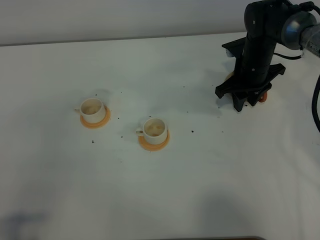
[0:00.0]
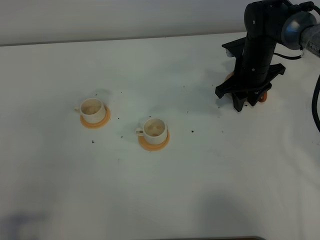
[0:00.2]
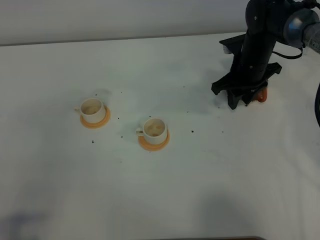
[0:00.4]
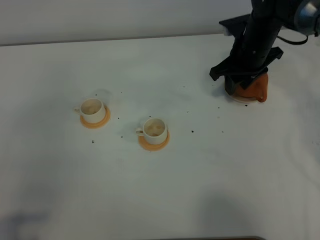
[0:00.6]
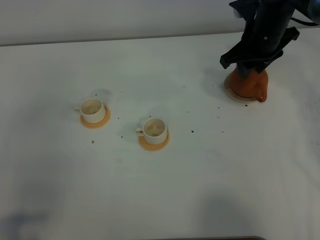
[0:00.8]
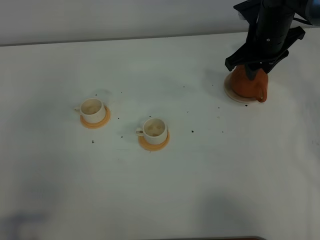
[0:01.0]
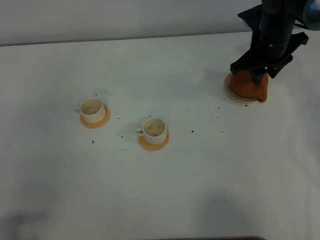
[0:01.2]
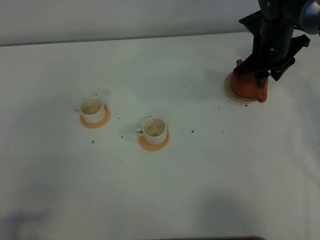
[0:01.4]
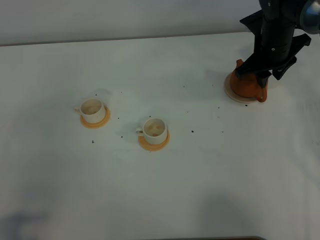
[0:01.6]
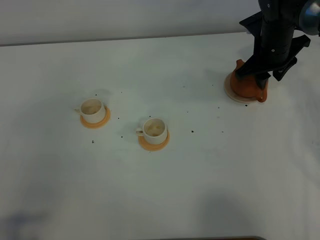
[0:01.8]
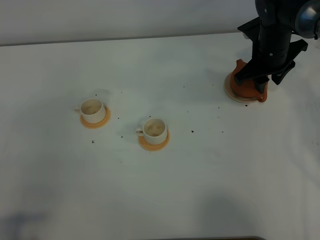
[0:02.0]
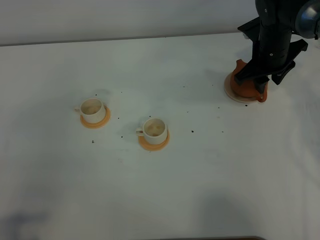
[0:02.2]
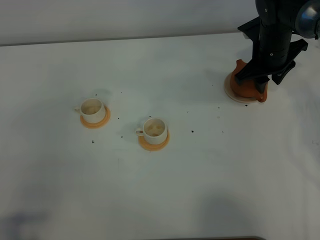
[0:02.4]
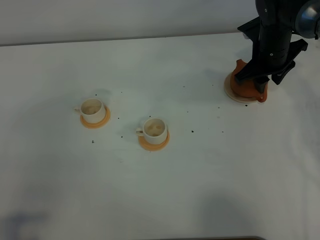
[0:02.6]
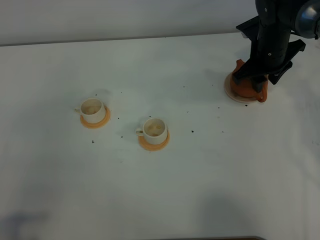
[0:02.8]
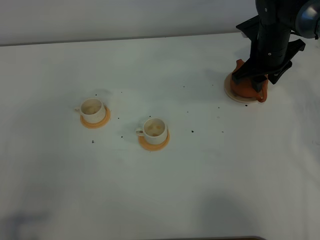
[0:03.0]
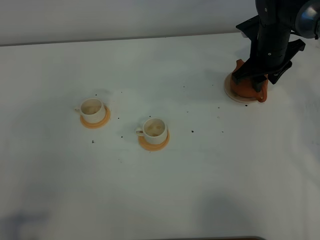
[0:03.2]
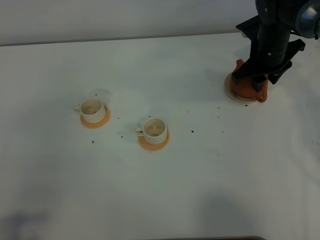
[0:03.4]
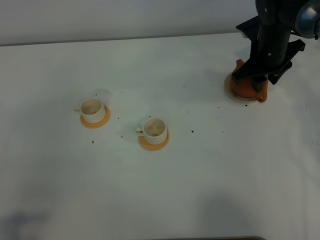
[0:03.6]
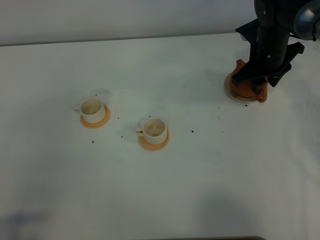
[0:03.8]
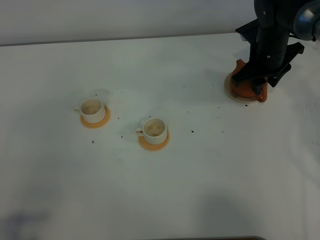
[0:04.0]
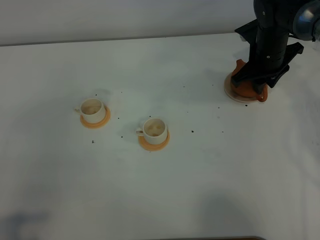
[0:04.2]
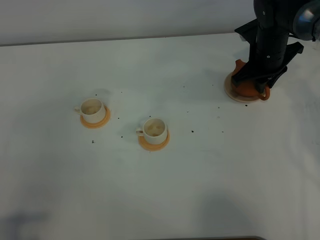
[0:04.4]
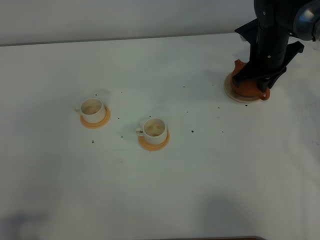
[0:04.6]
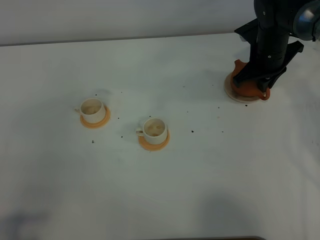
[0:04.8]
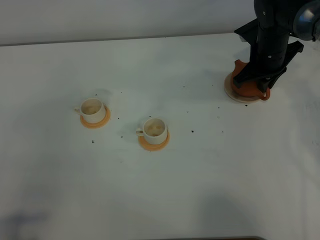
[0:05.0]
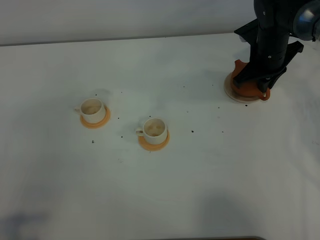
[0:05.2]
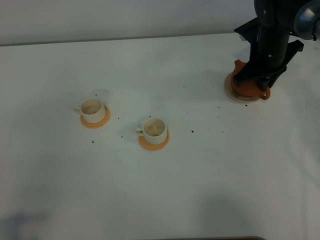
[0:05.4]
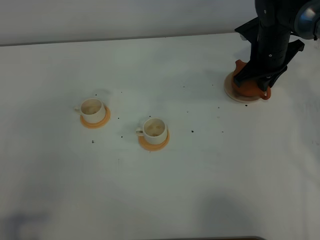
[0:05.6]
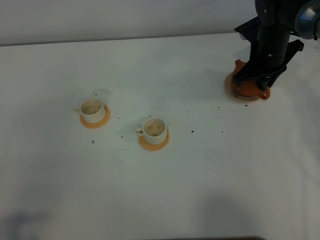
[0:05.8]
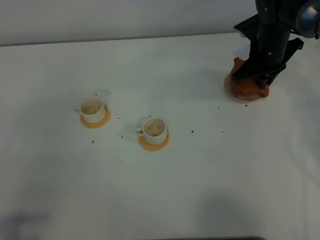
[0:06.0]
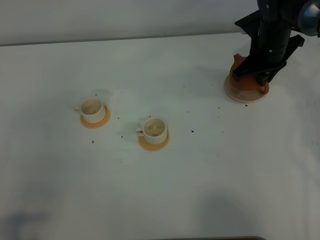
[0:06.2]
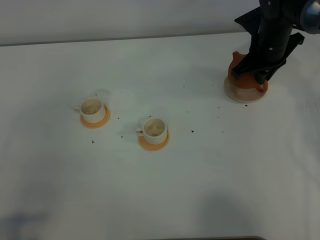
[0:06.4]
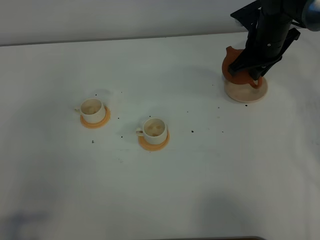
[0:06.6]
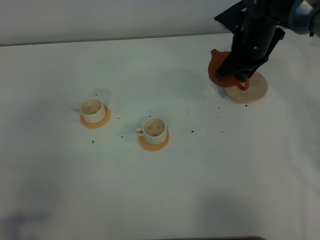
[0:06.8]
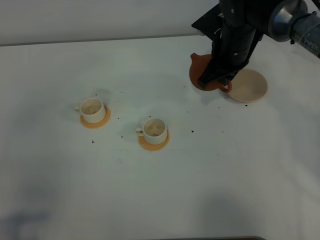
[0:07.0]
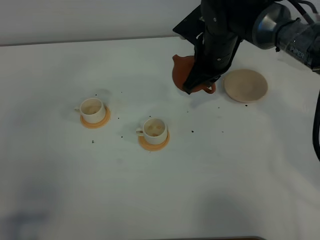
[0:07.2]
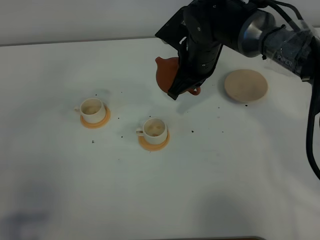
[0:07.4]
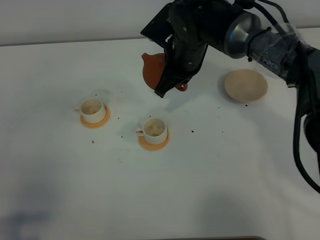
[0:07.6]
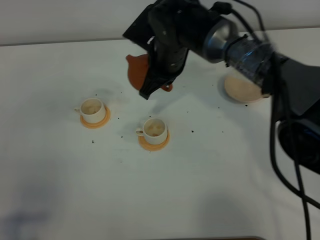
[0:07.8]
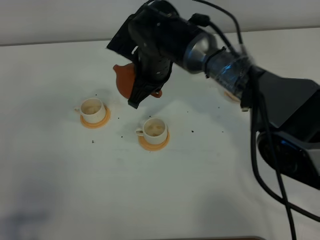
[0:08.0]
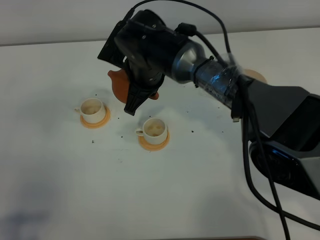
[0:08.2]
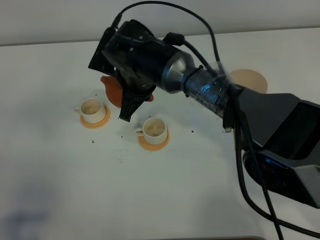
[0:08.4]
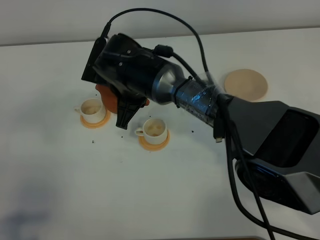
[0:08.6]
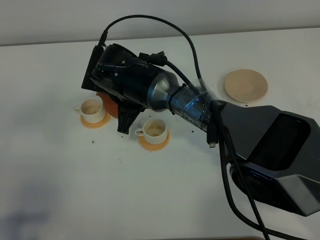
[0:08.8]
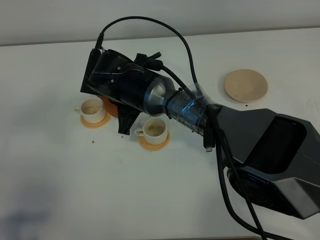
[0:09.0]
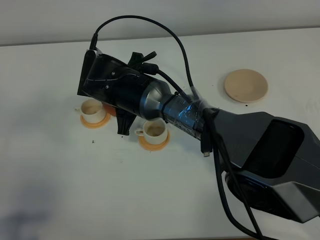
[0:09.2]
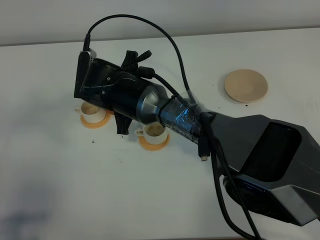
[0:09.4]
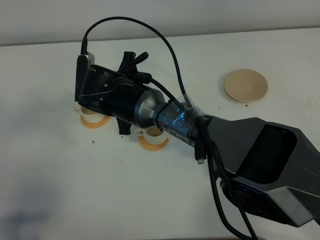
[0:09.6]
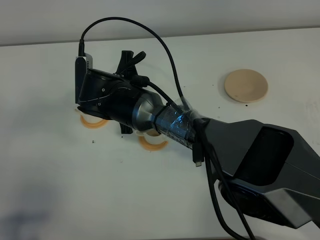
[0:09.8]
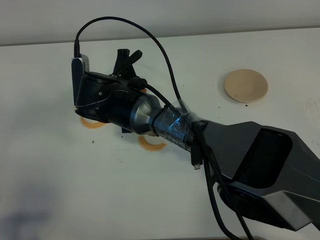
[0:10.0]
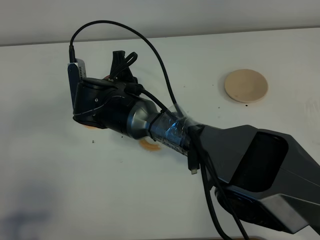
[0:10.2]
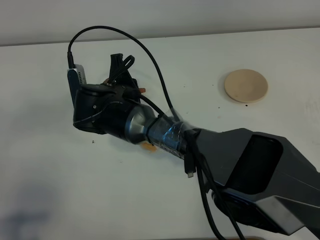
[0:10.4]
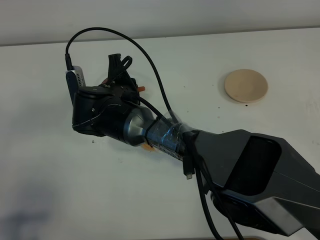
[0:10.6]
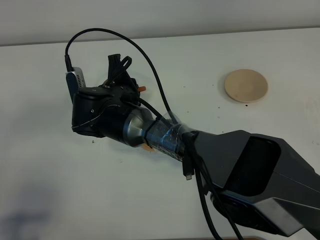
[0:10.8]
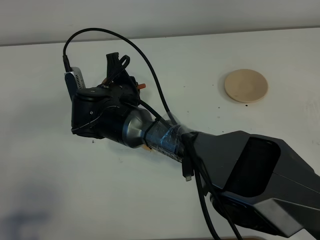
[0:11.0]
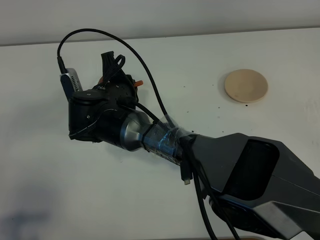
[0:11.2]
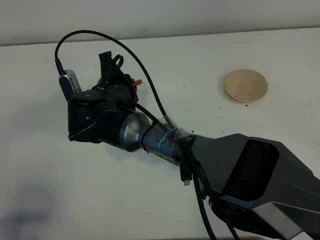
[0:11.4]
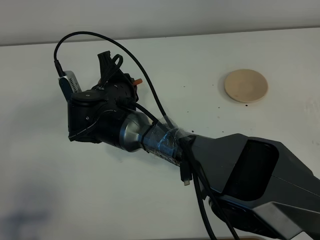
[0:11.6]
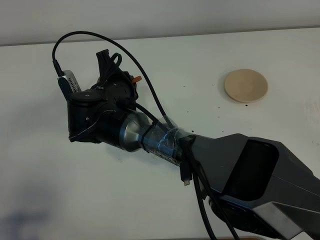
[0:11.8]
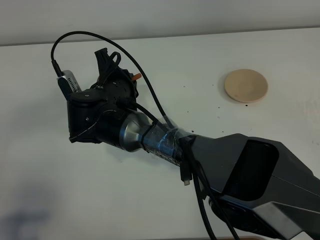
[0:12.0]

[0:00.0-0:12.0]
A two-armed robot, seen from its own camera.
Task of the whole recording: grasp the brown teapot and pour the tea into the two white teacups one by one, put the brown teapot back in its original place.
Step, 0:00.0 to 0:06.2: Pick up the teapot with the right gripper.
0:00.0 to 0:01.6: The right gripper heads upward, covering some 5 cm.
0:01.6 to 0:03.0: There are only small adjustments of the grippers.
0:03.0 to 0:04.4: The right gripper closes.
0:04.4 to 0:06.0: Neither gripper changes place.
0:06.0 to 0:07.6: The right gripper travels to the left and backward by approximately 20 cm.
0:07.6 to 0:09.0: The right gripper heads to the left and backward, covering approximately 10 cm.
0:10.4 to 0:12.0: The grippers make only small movements.

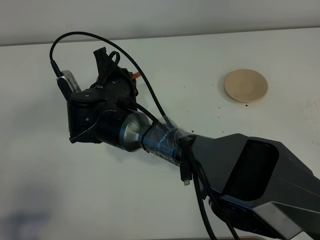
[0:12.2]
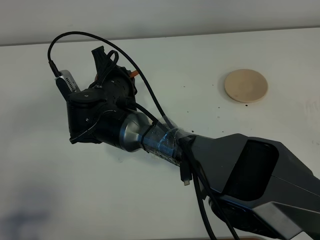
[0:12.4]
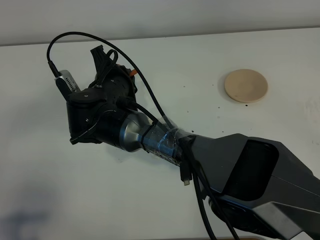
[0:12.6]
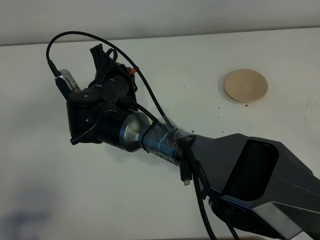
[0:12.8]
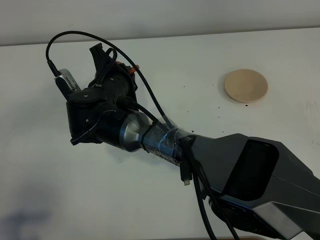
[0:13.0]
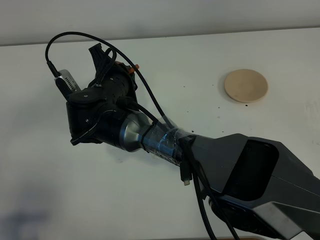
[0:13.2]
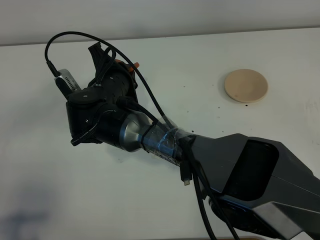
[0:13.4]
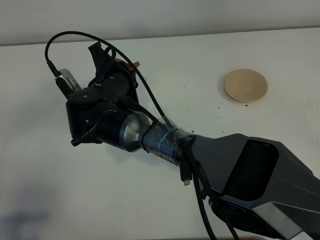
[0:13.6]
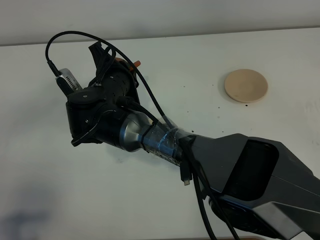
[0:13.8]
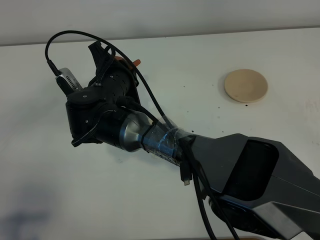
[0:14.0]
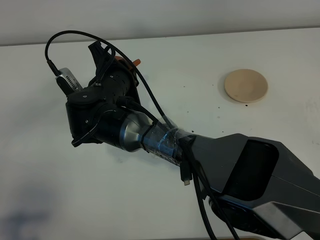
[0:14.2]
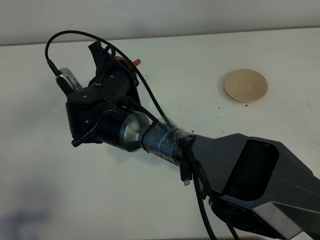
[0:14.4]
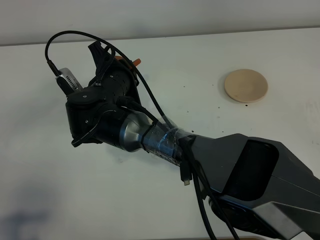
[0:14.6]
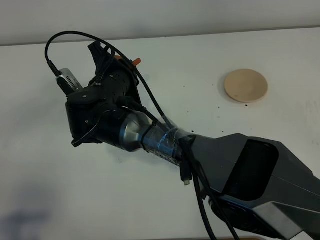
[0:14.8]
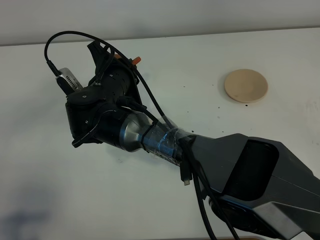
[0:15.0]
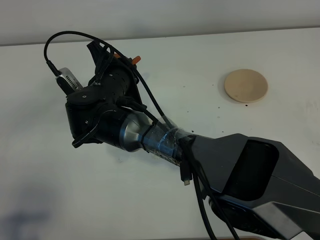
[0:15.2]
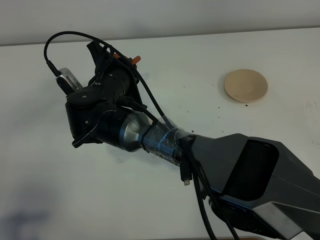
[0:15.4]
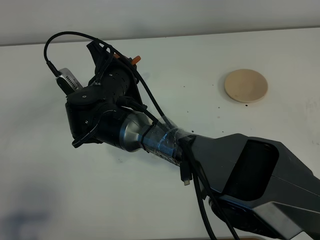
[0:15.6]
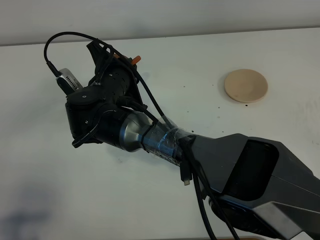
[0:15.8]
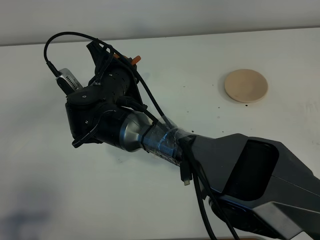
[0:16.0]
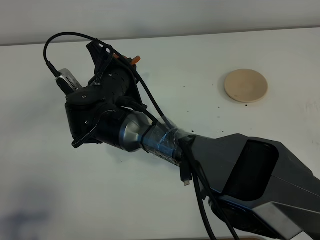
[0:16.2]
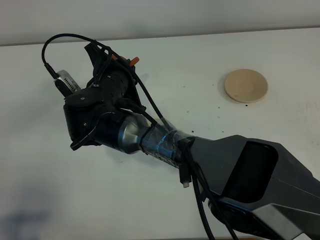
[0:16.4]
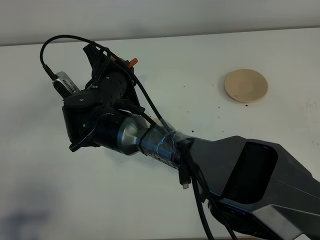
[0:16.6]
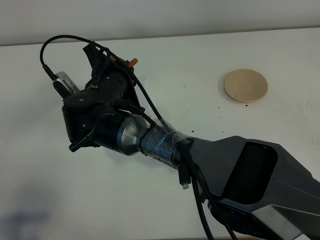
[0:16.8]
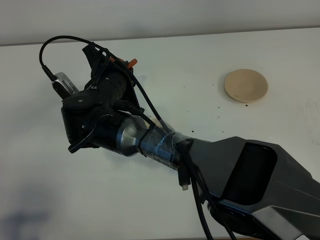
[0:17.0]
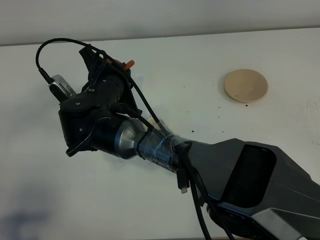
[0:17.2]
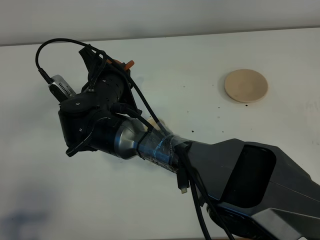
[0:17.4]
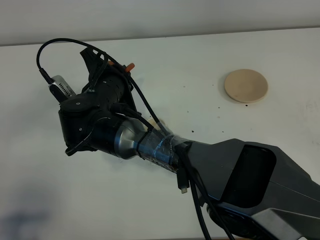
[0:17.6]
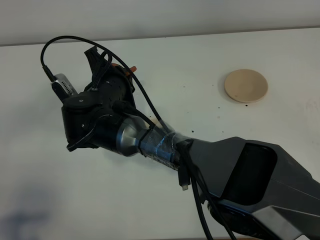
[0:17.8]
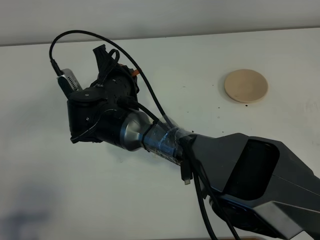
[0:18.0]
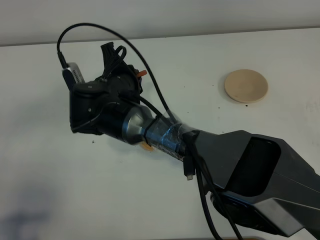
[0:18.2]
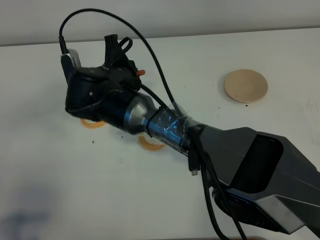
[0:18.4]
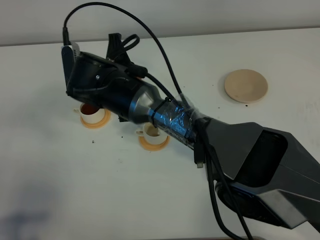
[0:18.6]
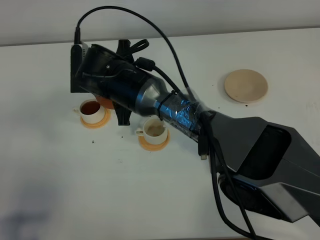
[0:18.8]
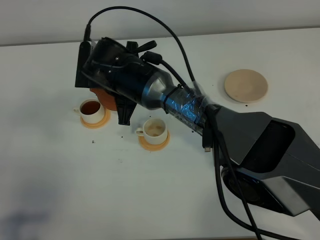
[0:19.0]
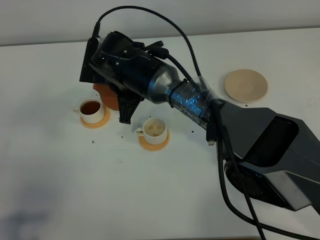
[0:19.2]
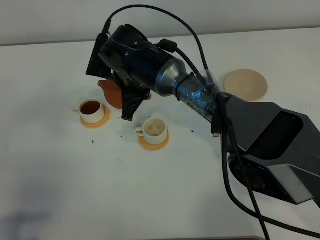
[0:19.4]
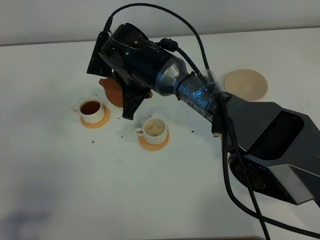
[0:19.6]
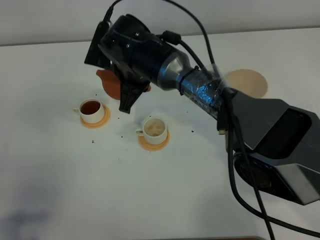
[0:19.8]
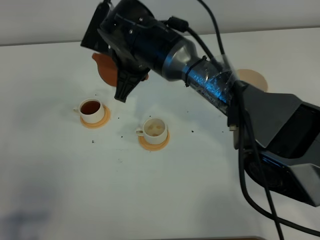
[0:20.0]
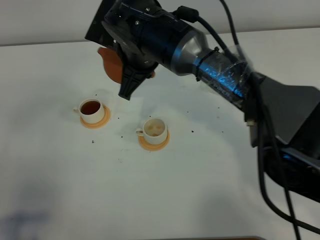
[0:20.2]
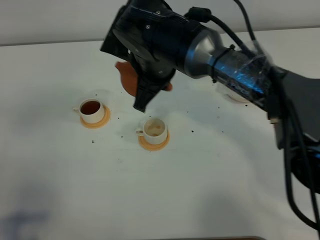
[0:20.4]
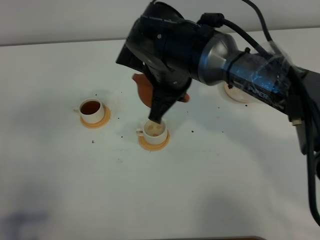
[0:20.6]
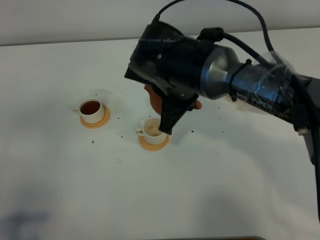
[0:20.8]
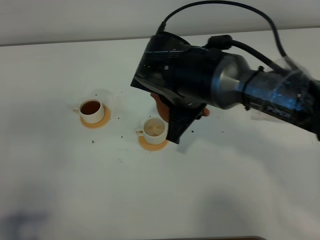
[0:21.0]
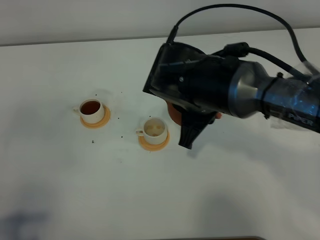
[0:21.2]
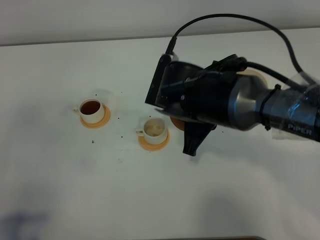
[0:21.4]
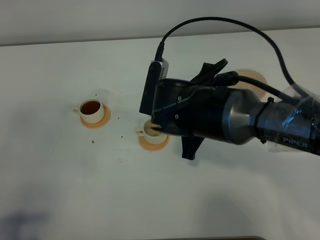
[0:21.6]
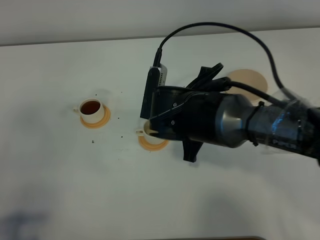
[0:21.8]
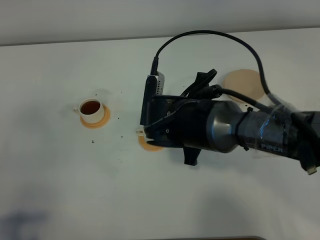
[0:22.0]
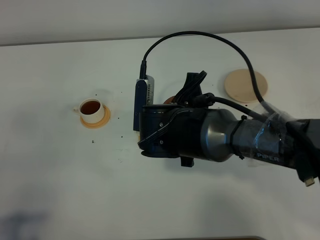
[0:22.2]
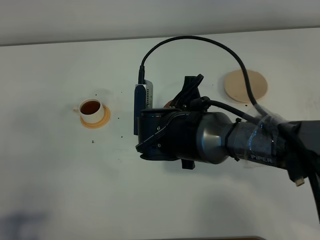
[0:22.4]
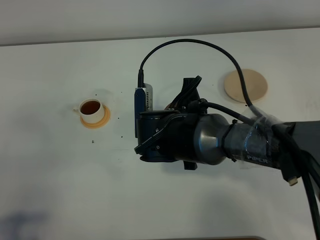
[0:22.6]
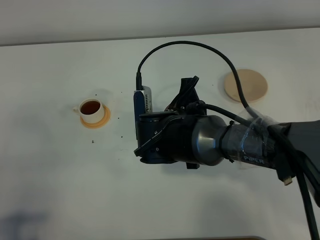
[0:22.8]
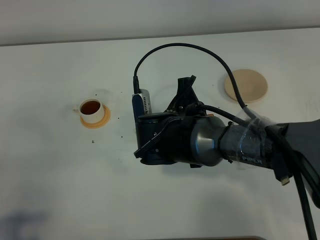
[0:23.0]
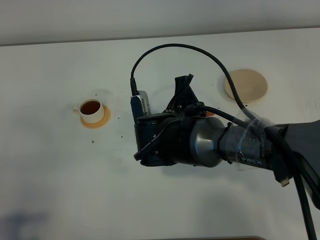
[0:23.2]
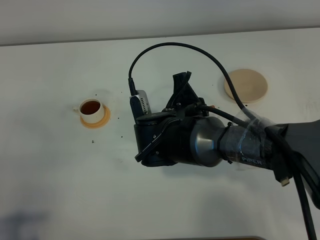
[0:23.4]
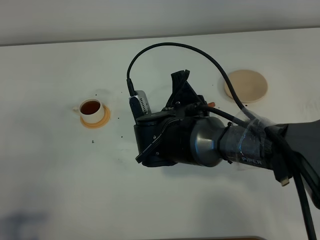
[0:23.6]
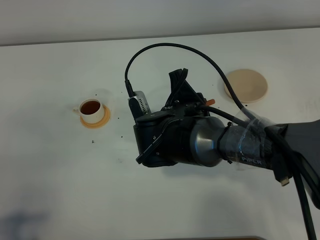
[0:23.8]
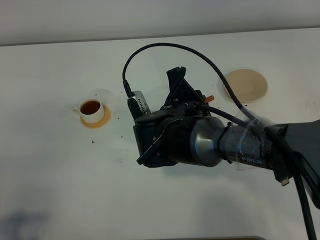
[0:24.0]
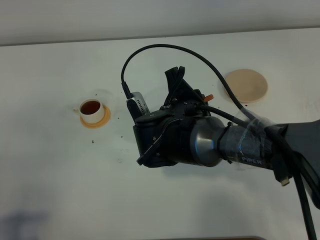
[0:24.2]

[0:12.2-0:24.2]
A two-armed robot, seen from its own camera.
Task of the whole recording: grasp the brown teapot and pour the tea into the two white teacups one by one, put the brown teapot back in its original place.
Step, 0:12.2 to 0:18.4: Pour tea into the teacup with the right gripper.
0:12.2 to 0:13.8: The grippers make only small movements.
0:13.8 to 0:16.6: Both grippers stay put.
0:16.6 to 0:18.2: The grippers move only a little.
0:18.2 to 0:19.8: The right gripper moves roughly 5 cm.
0:19.8 to 0:21.2: The right gripper moves to the right and backward, some 15 cm.
0:21.2 to 0:22.6: The right gripper is displaced downward by some 5 cm.
